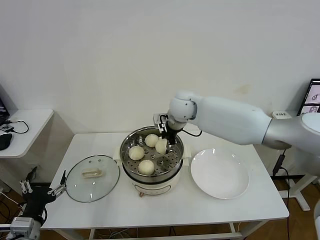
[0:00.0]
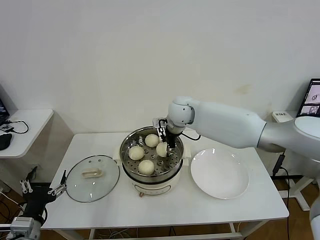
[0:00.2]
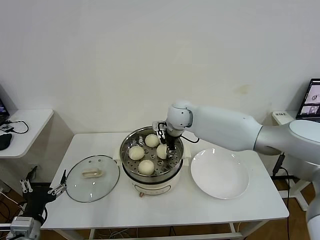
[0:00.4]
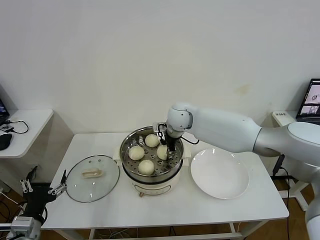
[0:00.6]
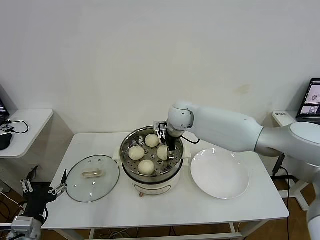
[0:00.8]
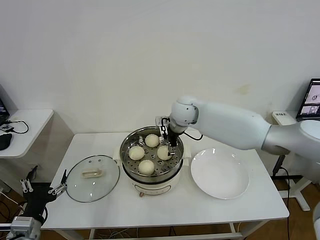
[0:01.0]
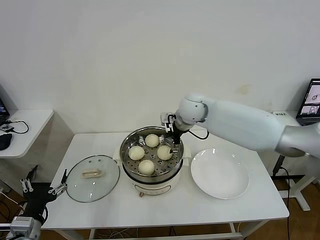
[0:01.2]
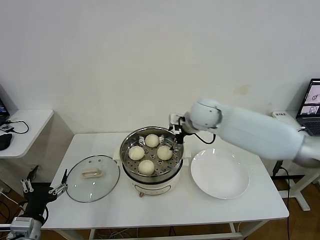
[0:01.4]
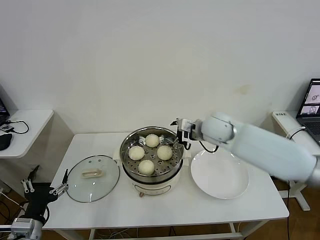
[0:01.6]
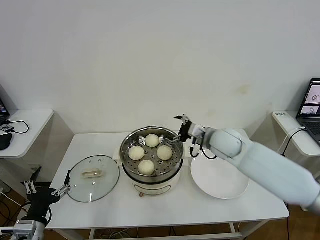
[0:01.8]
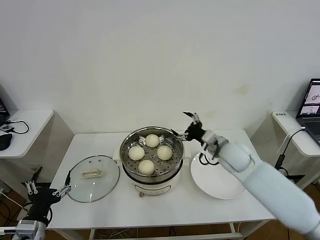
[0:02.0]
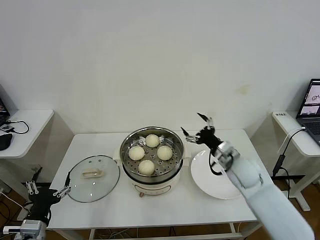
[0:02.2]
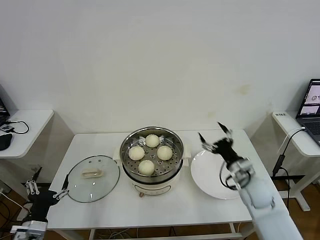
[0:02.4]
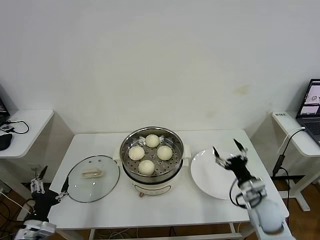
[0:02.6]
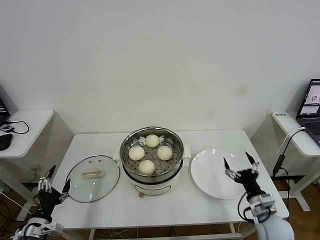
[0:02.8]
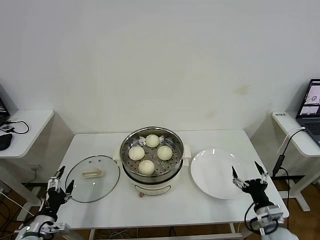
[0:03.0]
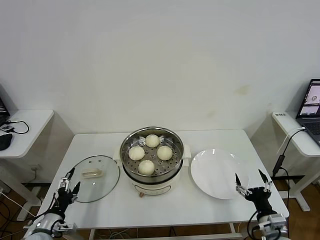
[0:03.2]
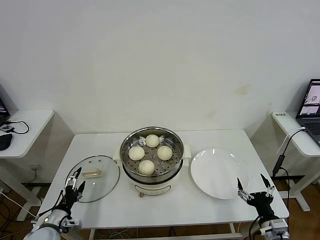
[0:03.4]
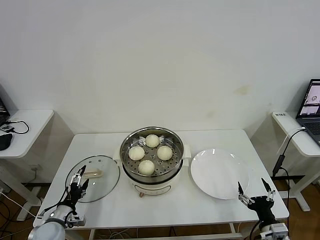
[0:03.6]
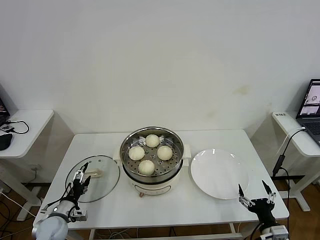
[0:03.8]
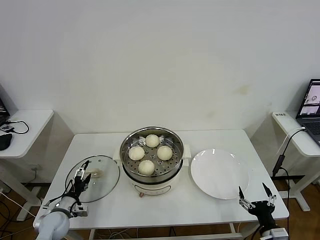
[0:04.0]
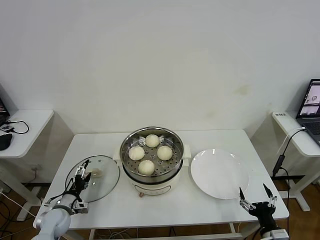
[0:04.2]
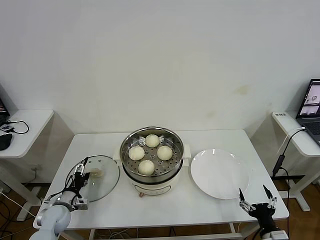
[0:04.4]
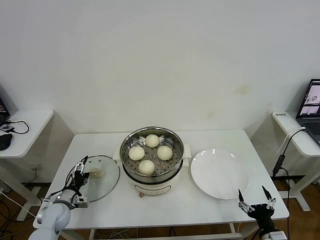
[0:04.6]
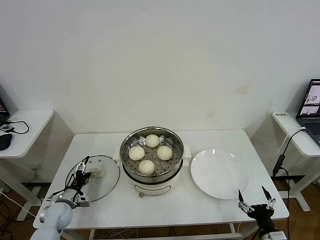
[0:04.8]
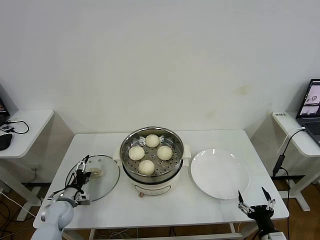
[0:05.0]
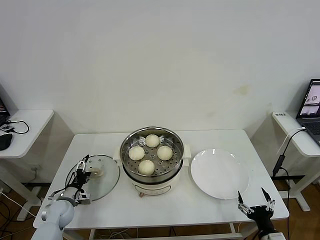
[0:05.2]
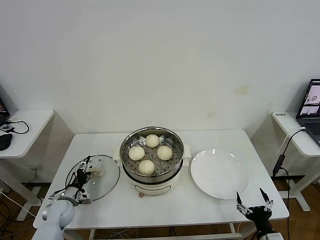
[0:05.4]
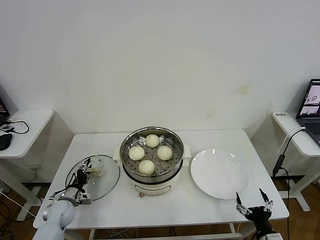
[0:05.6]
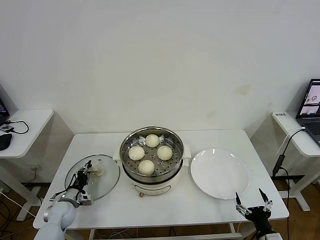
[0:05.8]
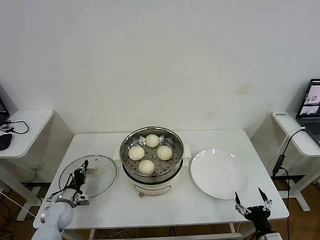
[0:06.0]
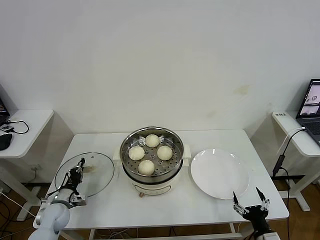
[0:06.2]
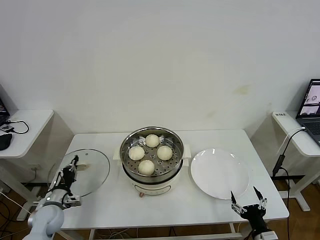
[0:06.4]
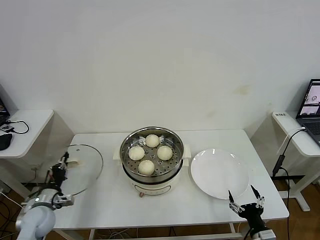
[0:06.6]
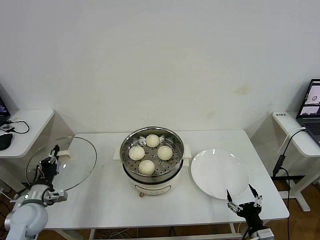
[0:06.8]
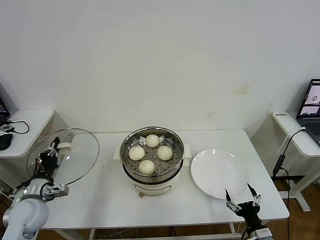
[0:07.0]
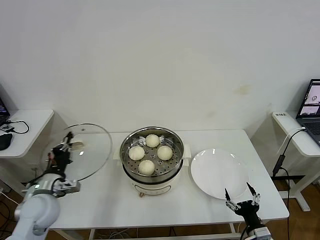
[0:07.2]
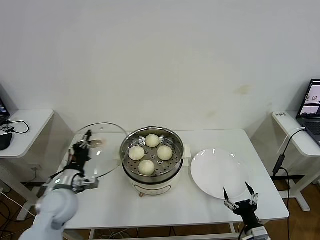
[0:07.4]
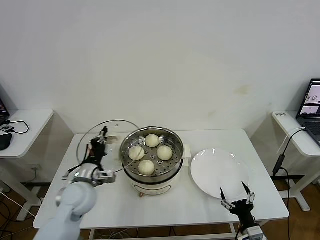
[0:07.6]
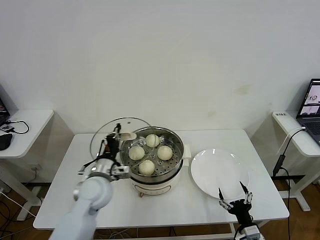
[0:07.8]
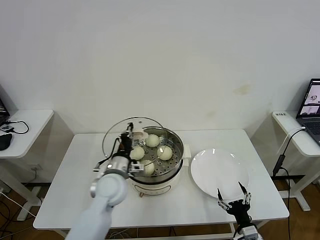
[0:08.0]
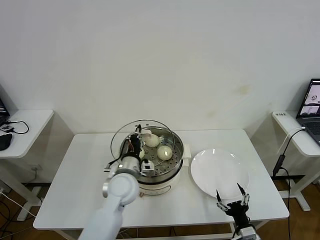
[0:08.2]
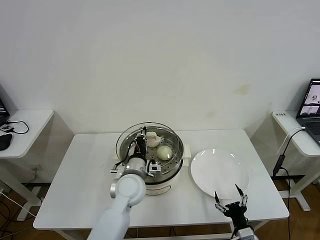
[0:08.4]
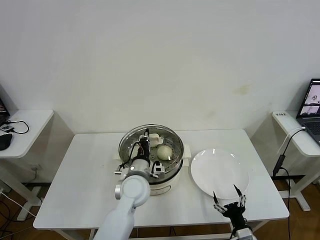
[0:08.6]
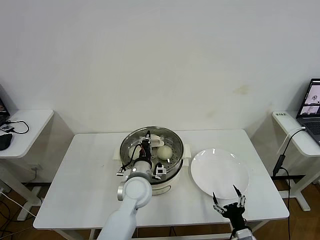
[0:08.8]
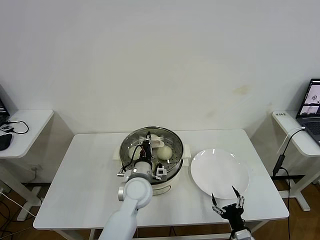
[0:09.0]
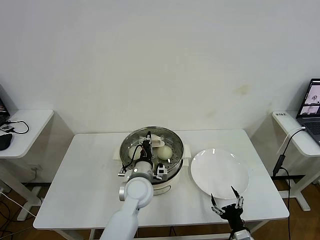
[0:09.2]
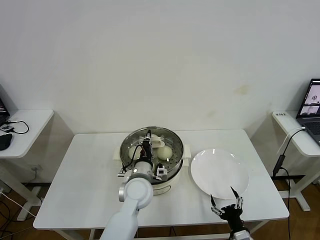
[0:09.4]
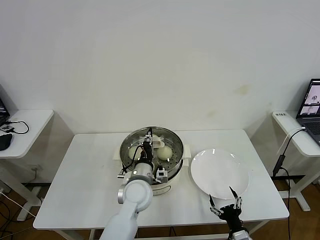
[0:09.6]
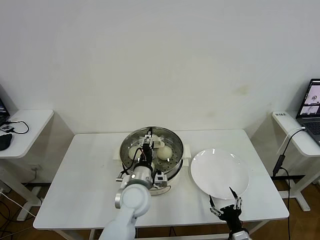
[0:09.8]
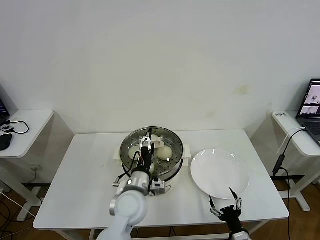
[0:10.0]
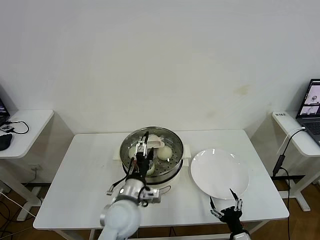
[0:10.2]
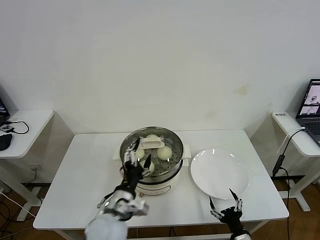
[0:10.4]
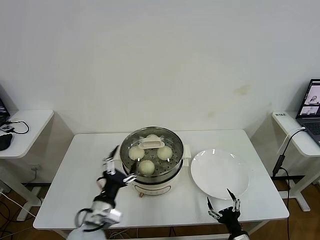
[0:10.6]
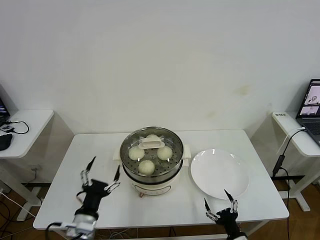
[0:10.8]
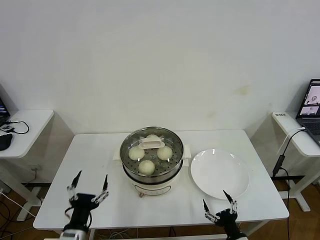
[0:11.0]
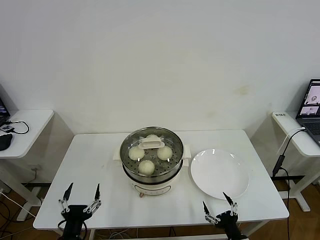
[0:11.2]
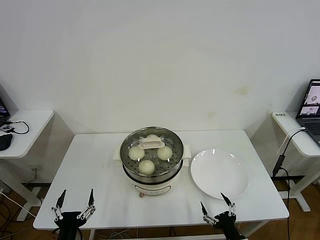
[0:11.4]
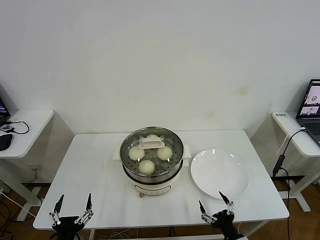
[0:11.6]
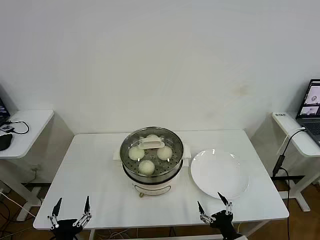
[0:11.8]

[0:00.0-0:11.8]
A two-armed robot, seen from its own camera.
Task of the whole recording: take steamed baozi put them in steamer then cover it.
Step, 0:01.2 to 0:06.0: Grasp the pot lid with left gripper.
Step, 0:06.2 to 0:10.0: Place the pot lid on the steamer with left gripper.
0:00.0 to 0:01.4: The right gripper travels to the right by some 5 cm, and opens its fingers.
0:01.4 to 0:03.0: The left gripper shifts some 10 cm downward; the right gripper goes about 40 cm backward, downward and to the right.
0:03.0 to 0:04.4: The right gripper goes some 5 cm backward, while the left gripper is displaced forward and downward by approximately 15 cm.
0:04.4 to 0:06.0: The left gripper closes.
0:06.0 to 0:07.4: The left gripper heads upward and to the right, covering approximately 20 cm.
0:07.4 to 0:08.8: The left gripper goes approximately 25 cm to the right.
0:08.8 to 0:10.4: The left gripper heads backward, covering about 10 cm, and opens up.
0:10.4 to 0:11.8: The left gripper moves backward, to the left and downward, approximately 25 cm.
